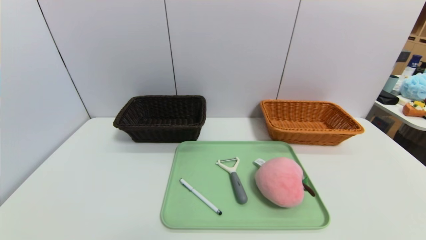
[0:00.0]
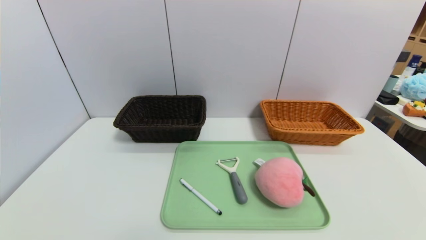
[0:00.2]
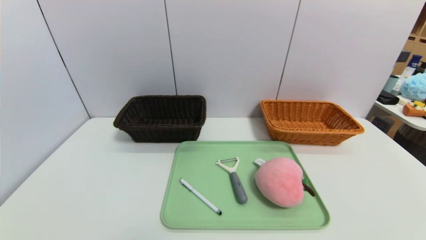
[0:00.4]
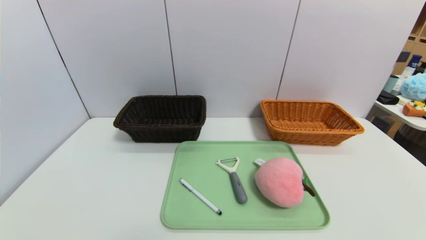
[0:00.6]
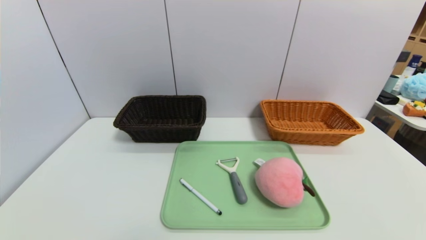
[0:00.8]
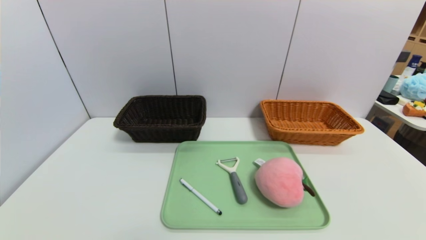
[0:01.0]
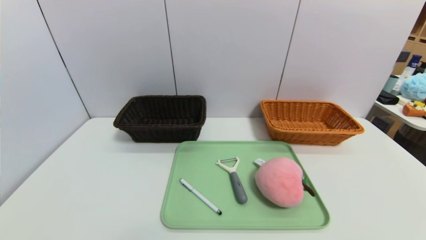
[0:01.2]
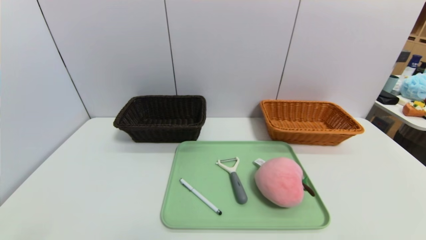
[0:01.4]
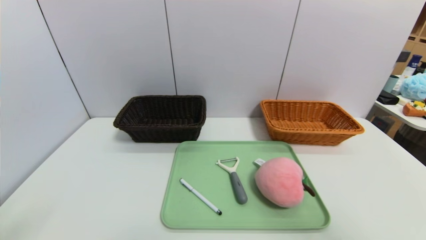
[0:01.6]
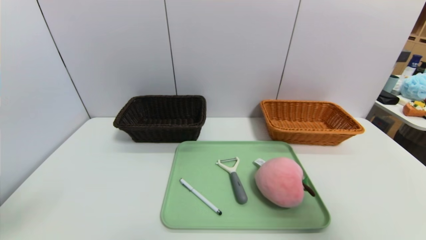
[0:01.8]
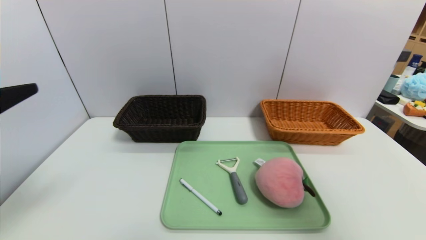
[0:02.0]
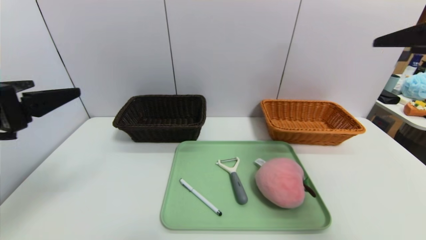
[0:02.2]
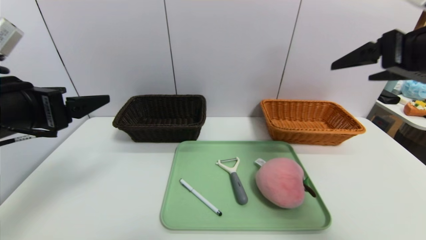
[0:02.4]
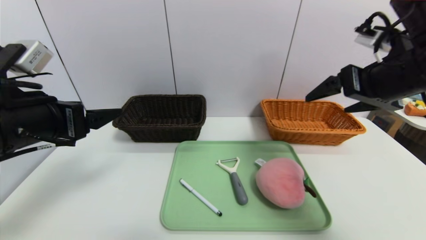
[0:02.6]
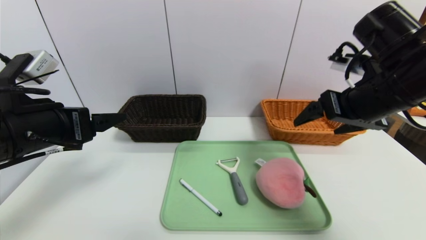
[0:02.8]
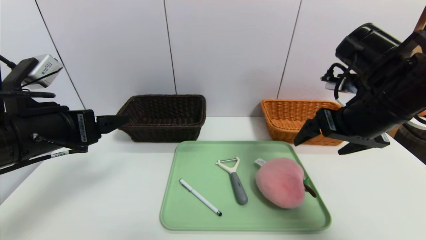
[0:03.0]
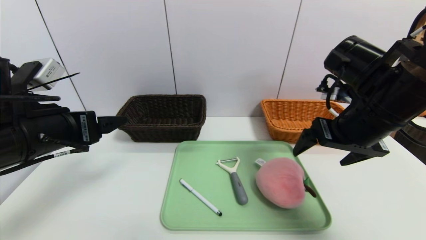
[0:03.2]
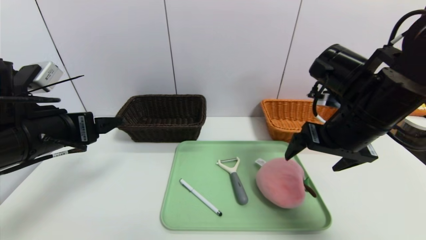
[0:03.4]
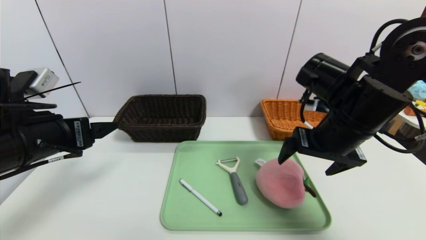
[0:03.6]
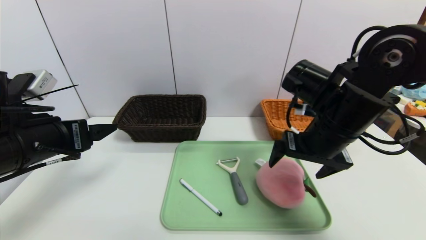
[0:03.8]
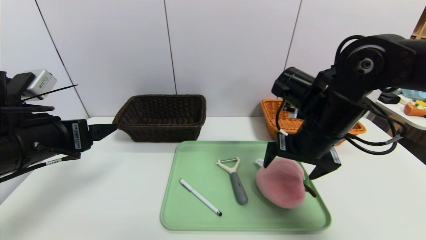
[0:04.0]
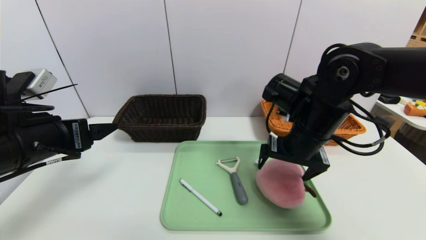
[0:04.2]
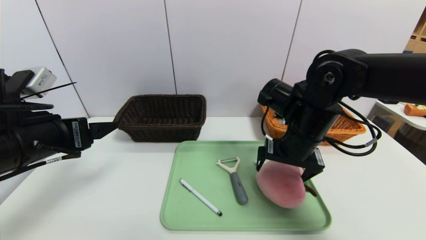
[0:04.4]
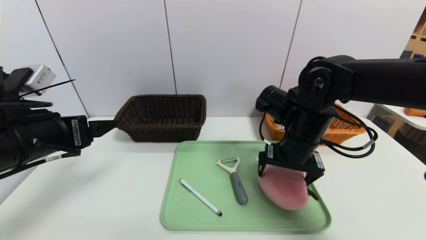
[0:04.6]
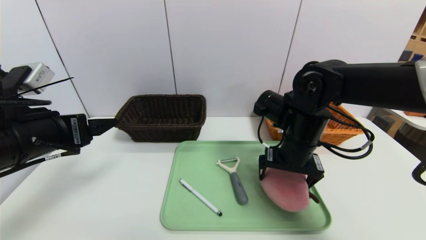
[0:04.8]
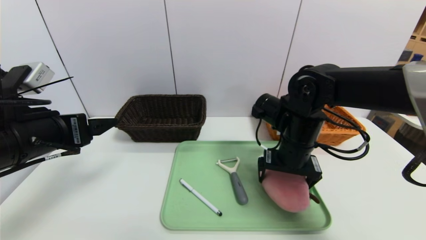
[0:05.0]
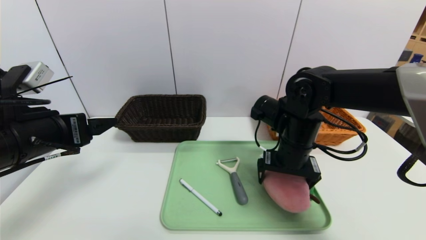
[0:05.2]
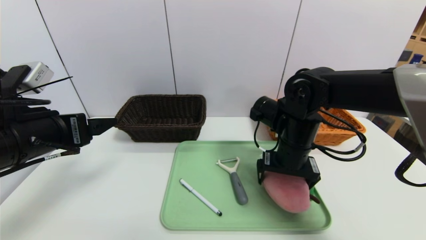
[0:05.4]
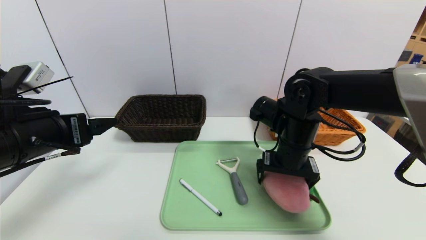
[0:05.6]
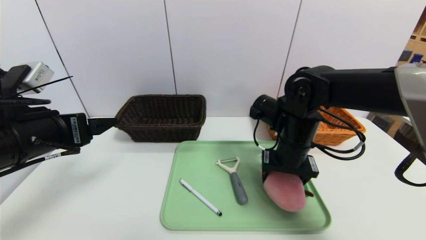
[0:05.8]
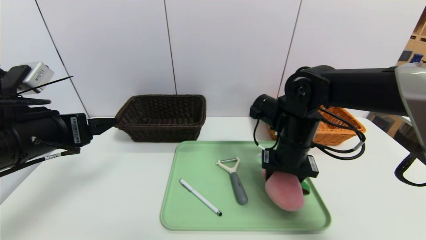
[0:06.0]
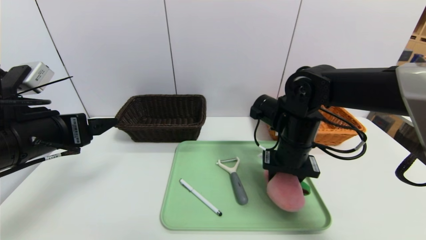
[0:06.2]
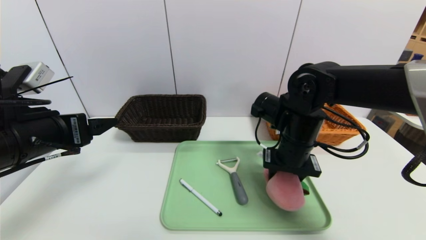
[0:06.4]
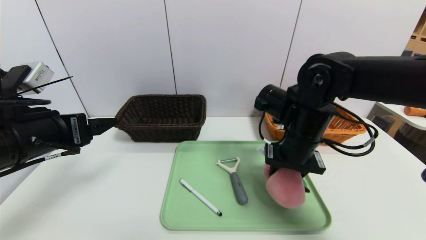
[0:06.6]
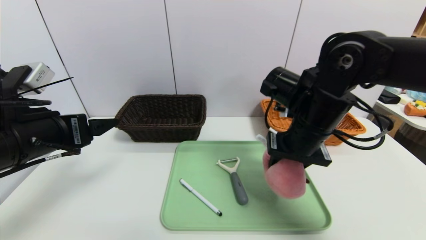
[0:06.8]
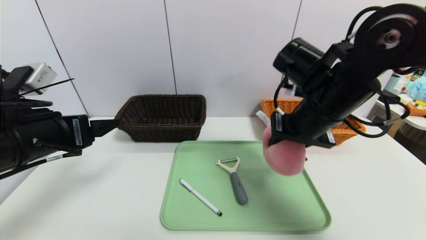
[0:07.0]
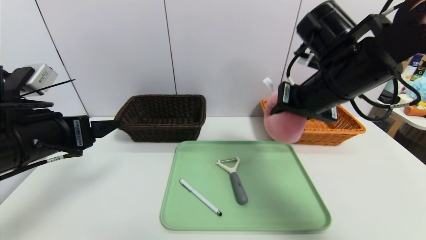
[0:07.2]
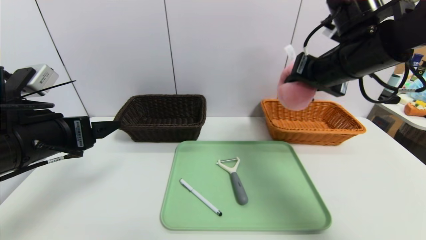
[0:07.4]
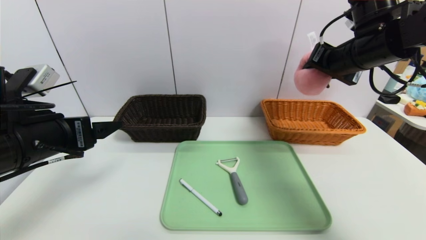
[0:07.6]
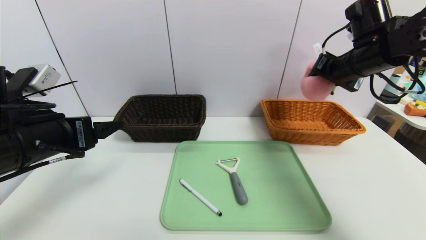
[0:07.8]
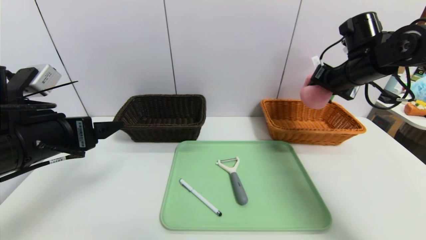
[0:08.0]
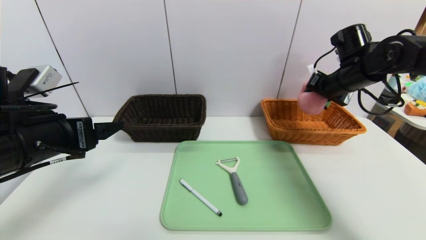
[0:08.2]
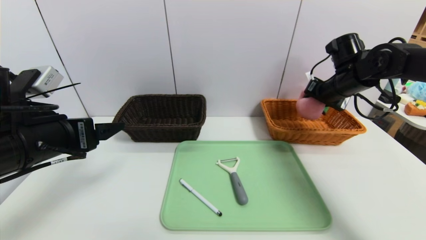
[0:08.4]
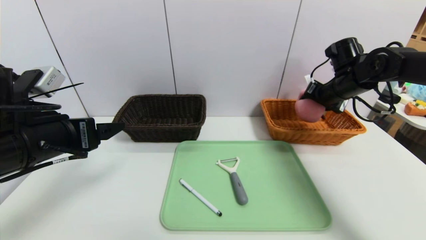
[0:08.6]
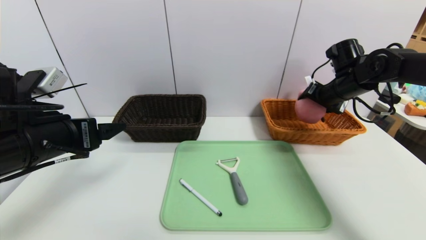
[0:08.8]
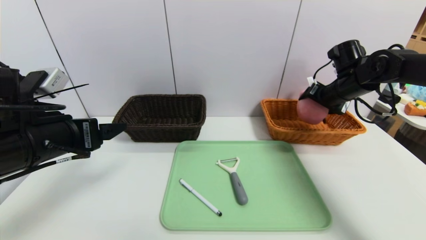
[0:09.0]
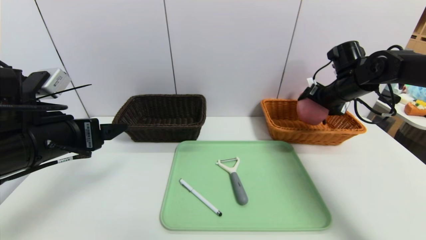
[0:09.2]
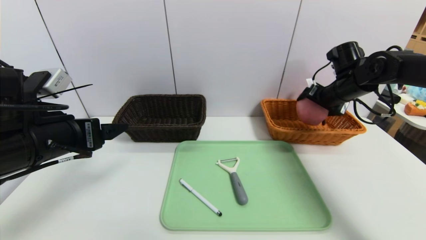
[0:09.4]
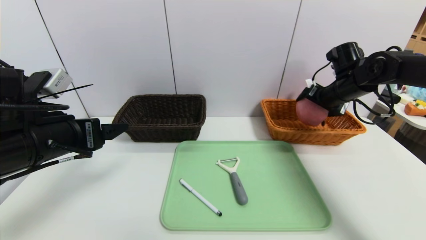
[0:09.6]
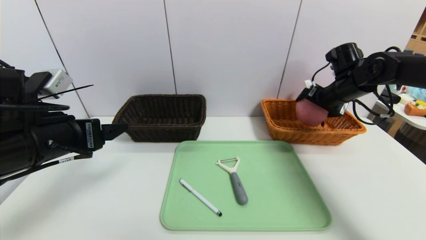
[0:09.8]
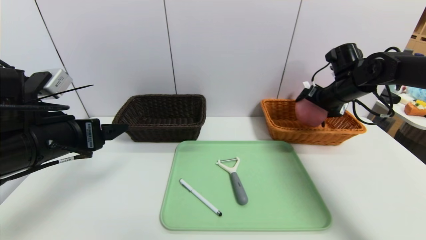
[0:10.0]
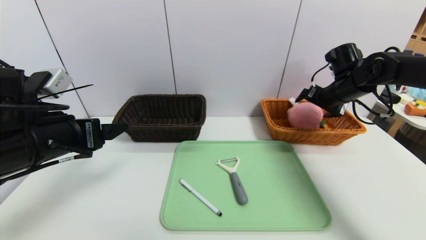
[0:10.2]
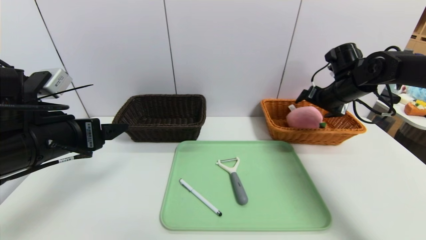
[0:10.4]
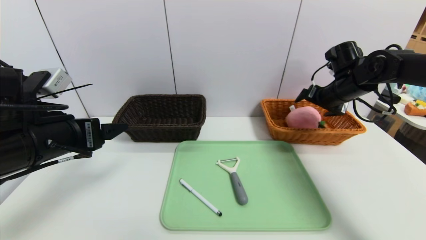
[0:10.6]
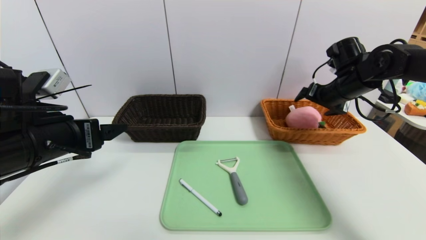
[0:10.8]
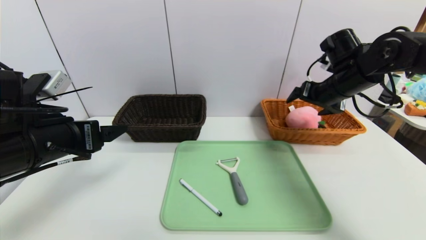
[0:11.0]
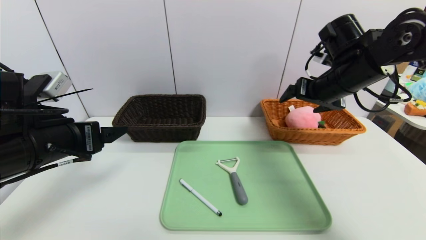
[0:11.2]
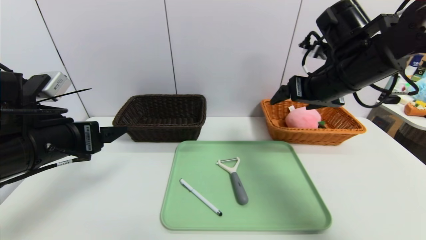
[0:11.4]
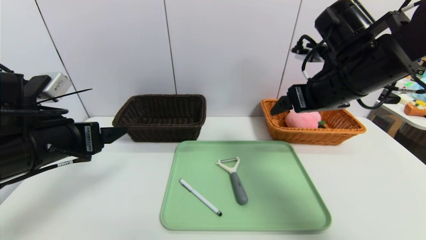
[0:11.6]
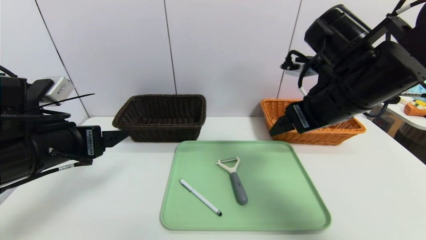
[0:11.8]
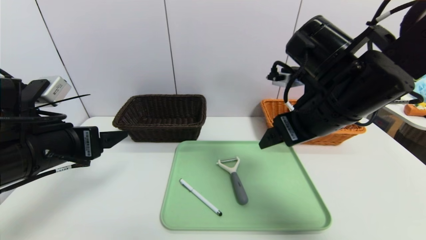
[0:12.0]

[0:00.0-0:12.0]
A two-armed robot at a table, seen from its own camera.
Task of the whole recording: place the food in the right basket with the right gripper, and place the non food items in the left basket with the left gripper.
Step, 0:00.0 to 0:10.6: Grasp the peach doll and put it in the right basket.
0:00.0 to 0:01.6: The right gripper goes approximately 25 cm upward.
0:01.6 to 0:03.0: The left gripper moves forward, approximately 15 cm, while the right gripper moves forward and to the left, some 25 cm.
0:03.0 to 0:04.4: The right gripper is displaced to the left and downward by roughly 10 cm.
0:04.4 to 0:06.0: The right gripper closes up.
0:06.0 to 0:07.6: The right gripper travels upward and to the right by some 20 cm.
0:07.6 to 0:09.0: The right gripper goes approximately 15 cm downward, forward and to the right, and opens up.
0:09.0 to 0:10.4: The grippers move only a little.
0:10.4 to 0:12.0: The right gripper moves backward and to the left, about 25 cm.

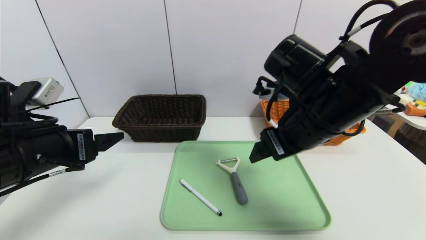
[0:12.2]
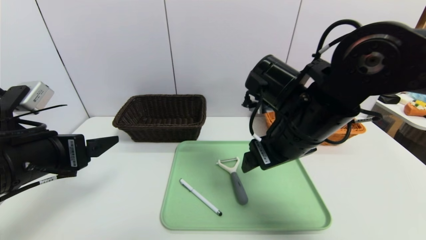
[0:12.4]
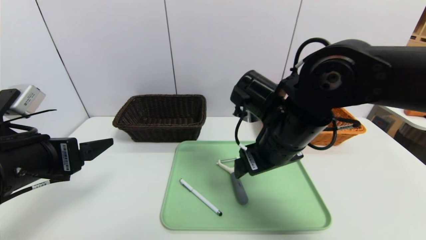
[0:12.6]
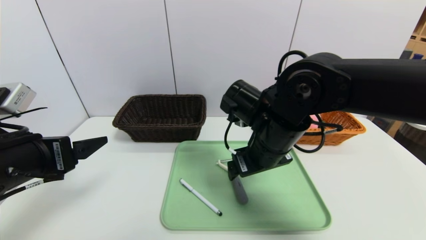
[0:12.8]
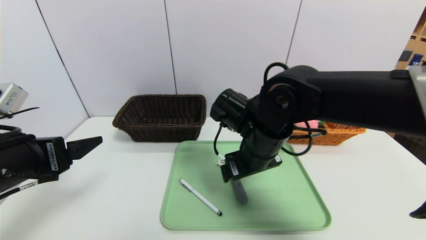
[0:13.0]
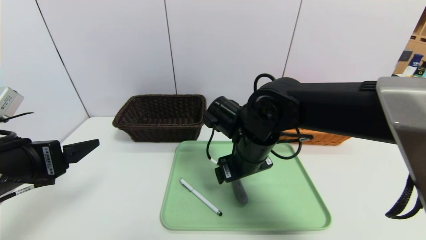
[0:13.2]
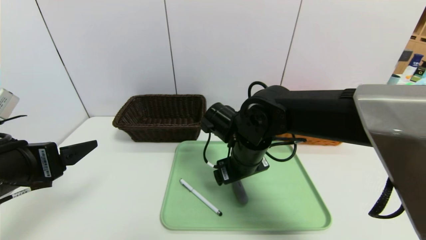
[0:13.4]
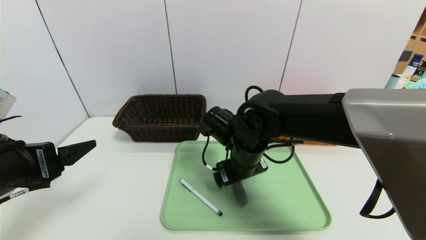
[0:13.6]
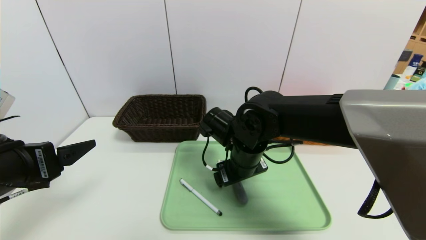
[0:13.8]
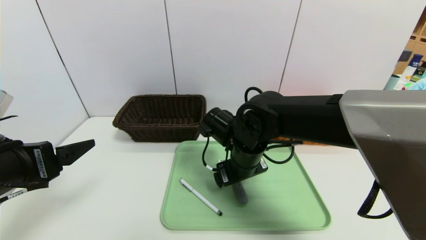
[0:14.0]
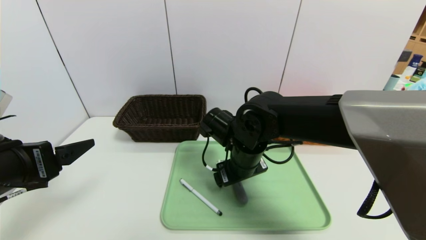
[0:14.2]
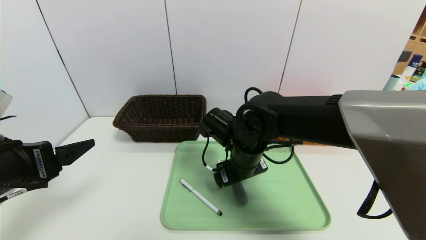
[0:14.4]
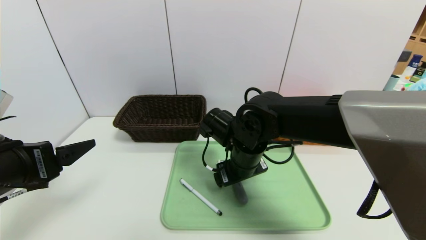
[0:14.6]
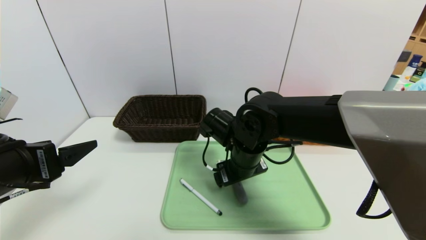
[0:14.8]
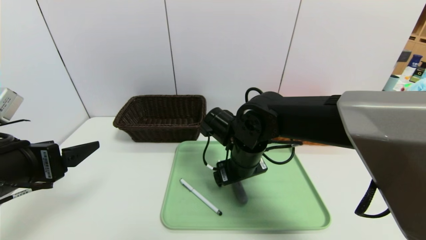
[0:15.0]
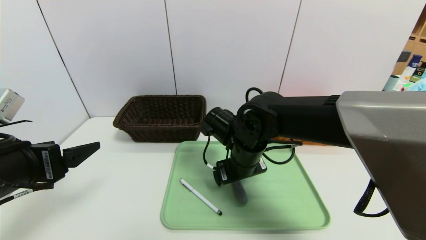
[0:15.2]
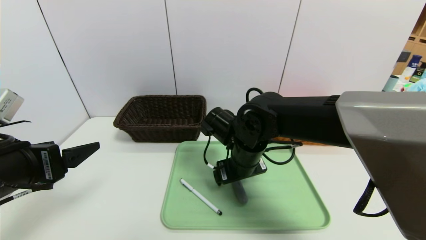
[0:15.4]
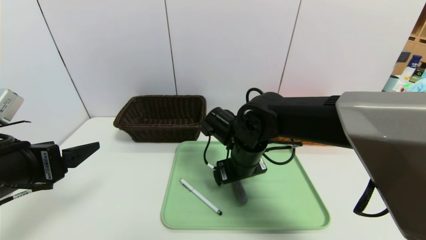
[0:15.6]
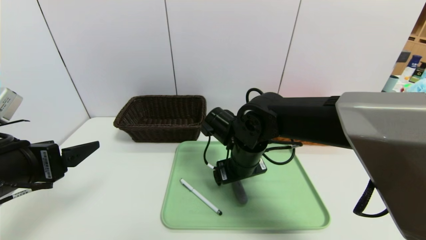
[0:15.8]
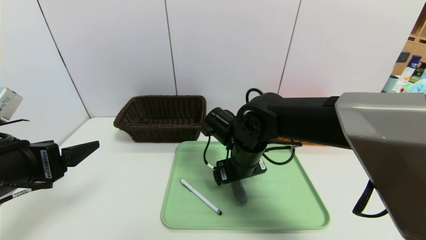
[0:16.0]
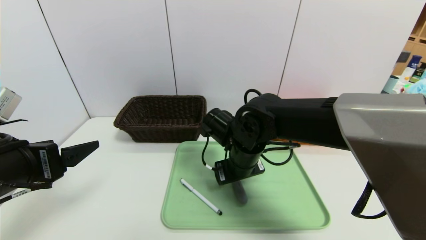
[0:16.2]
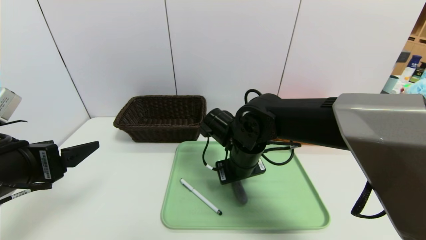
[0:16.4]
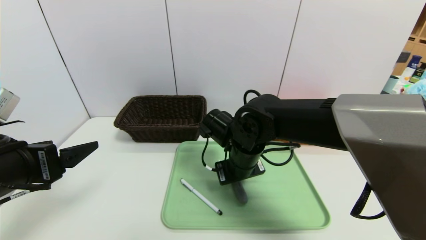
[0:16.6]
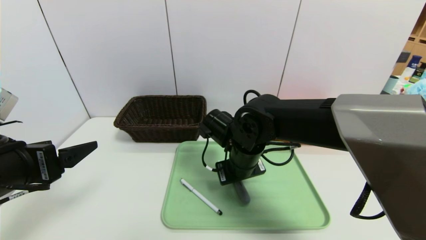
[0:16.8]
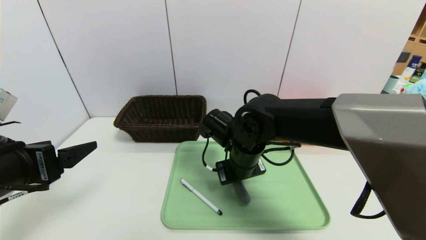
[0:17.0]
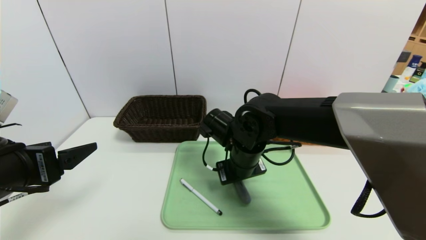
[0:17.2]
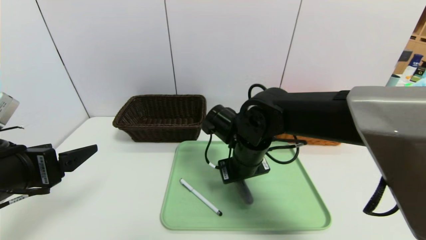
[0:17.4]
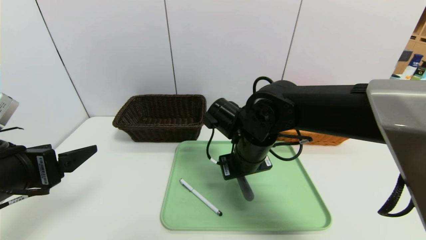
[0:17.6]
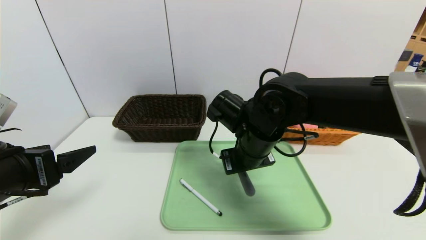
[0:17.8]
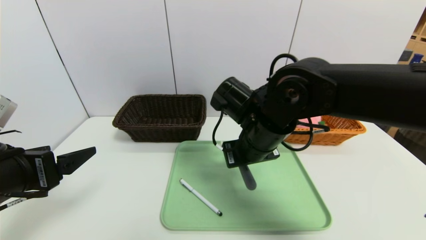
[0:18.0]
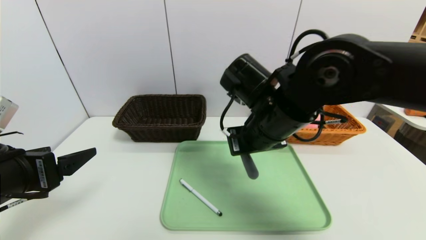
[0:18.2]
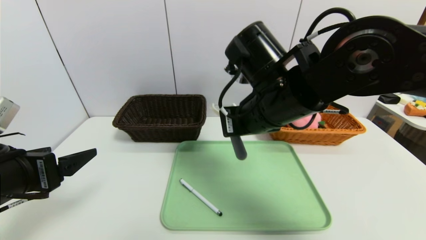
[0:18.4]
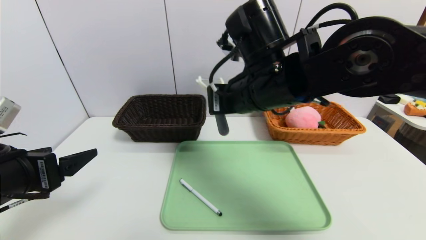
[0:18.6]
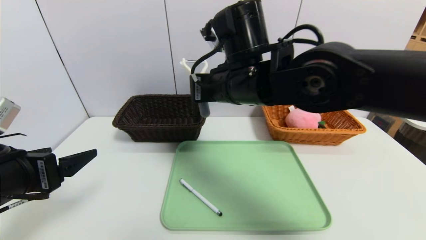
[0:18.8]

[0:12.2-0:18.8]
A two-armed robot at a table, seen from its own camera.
Task of the whole recording: place the food in the right basket with the right gripper, and place the non food items in the left basket with the left gripper.
0:12.2 to 0:13.8: The right gripper goes roughly 15 cm downward, to the left and forward.
0:13.8 to 0:15.4: The grippers move only a little.
0:15.4 to 0:17.2: The right gripper closes its fingers.
0:17.2 to 0:18.8: The right gripper heads upward, covering about 15 cm.
